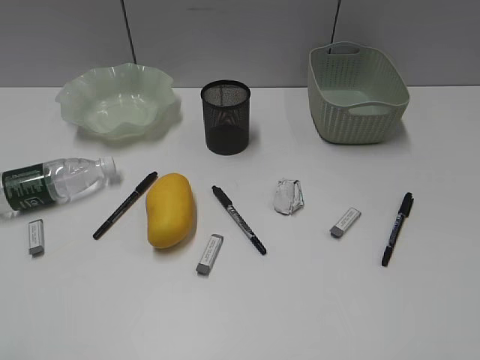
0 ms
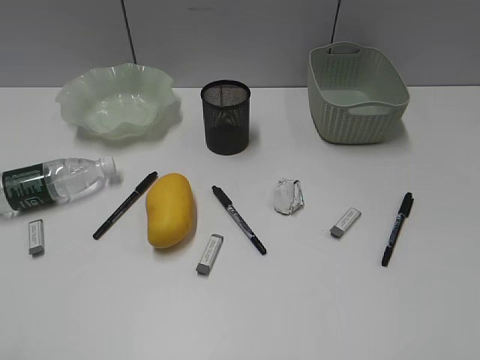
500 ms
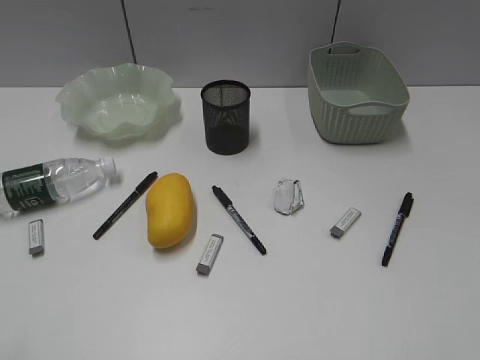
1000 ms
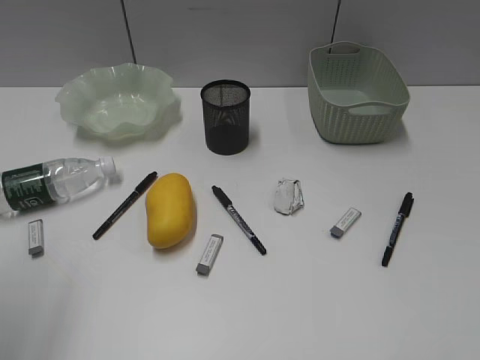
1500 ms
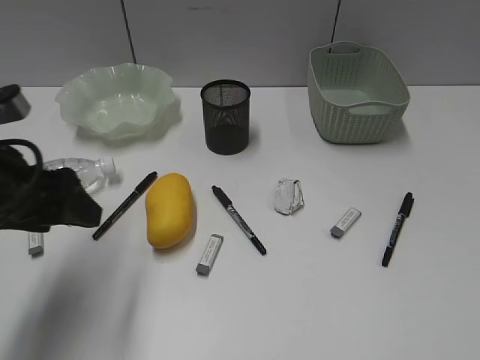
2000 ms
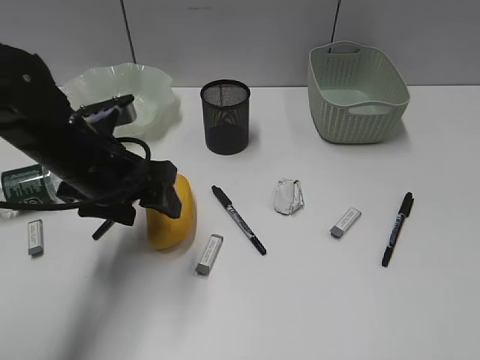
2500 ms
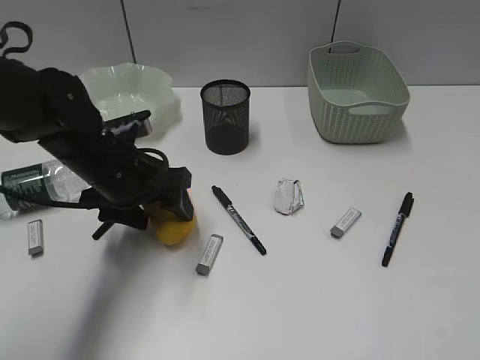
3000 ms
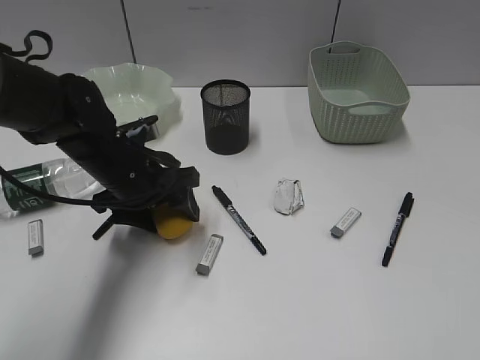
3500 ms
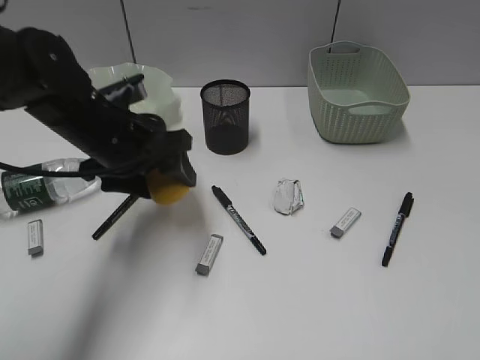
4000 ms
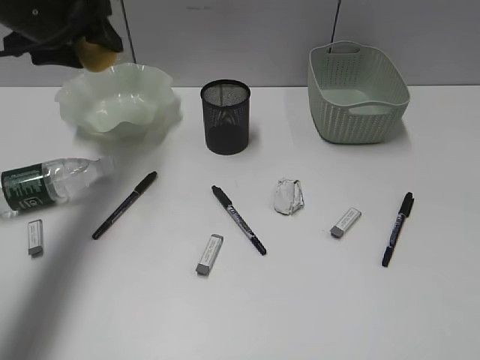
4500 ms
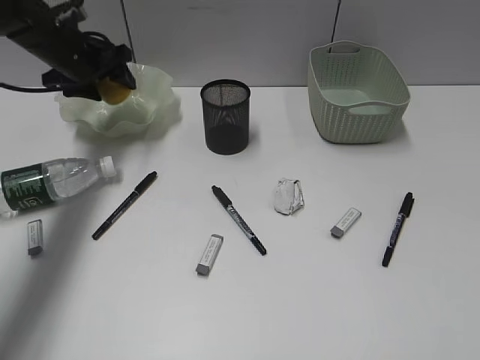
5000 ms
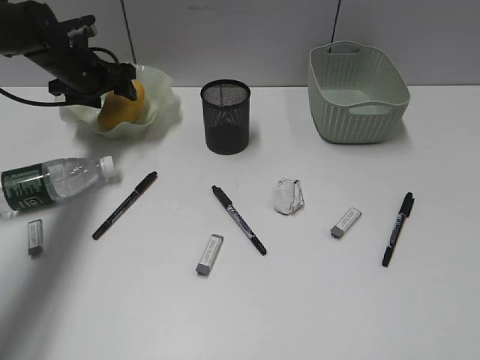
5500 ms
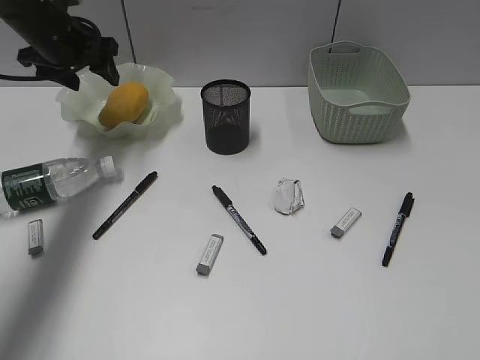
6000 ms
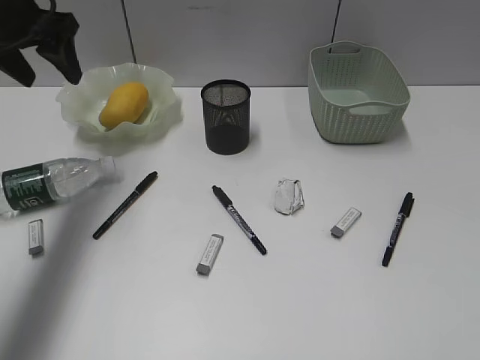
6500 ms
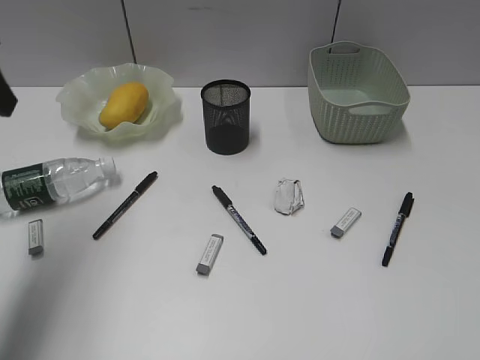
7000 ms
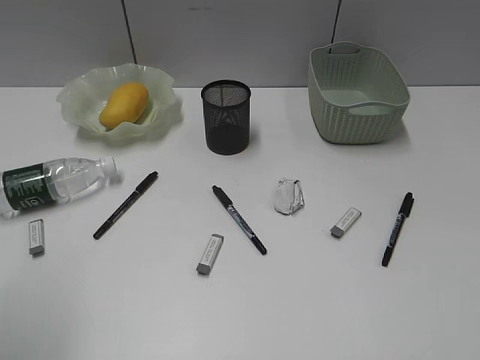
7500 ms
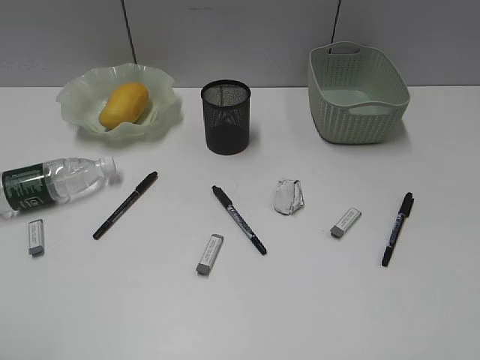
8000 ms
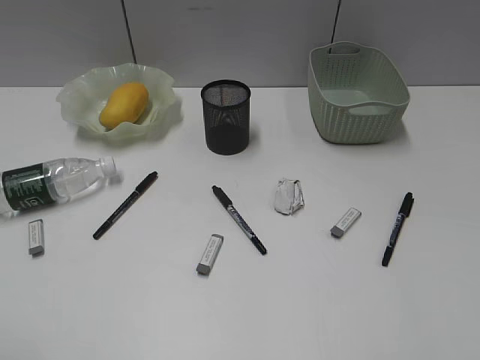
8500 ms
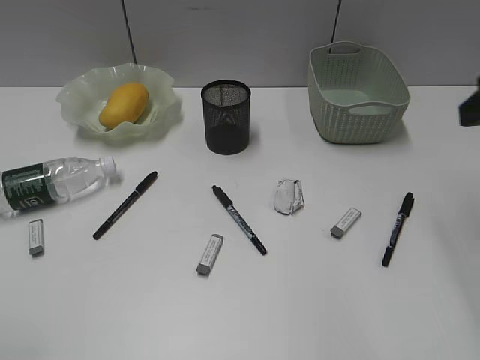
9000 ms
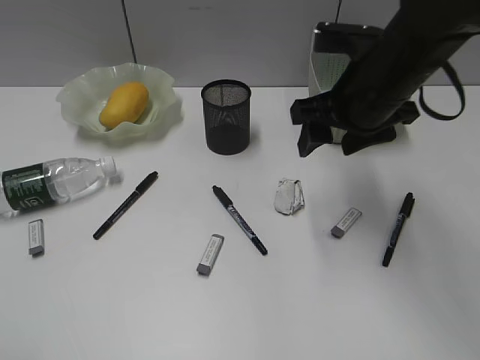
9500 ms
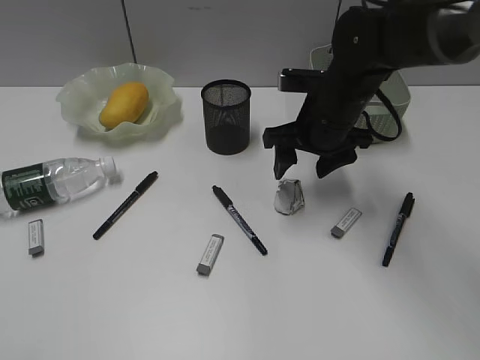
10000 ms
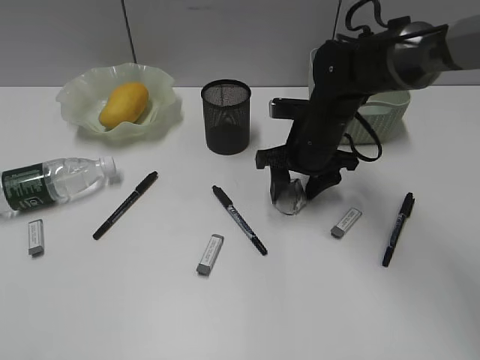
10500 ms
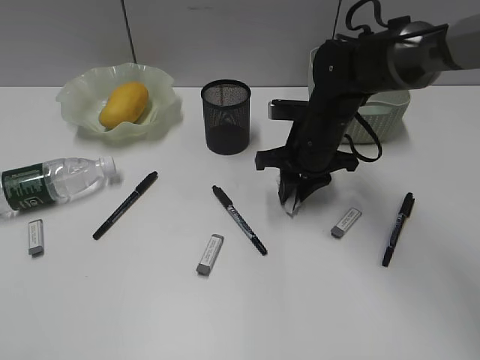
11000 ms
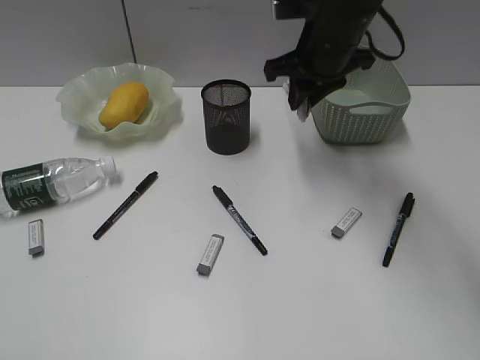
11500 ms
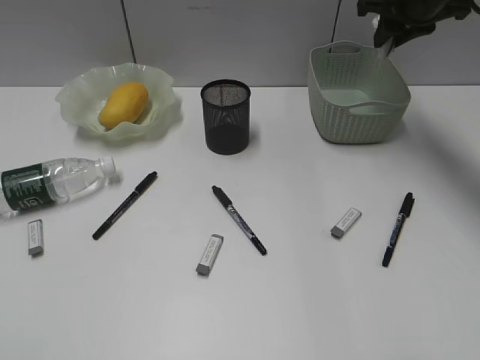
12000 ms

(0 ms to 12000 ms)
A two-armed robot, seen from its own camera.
Step, 1000 ms - 3500 ms: Grasp the mango with left gripper.
Step, 4000 ms - 6000 ms: Place the mango in the plate with left gripper.
Step, 6500 ms - 11000 ms: Grasp the waste paper with right gripper.
2000 ms - 4000 ms: The left gripper travels forward and to the right by approximately 15 cm.
4000 ms - 6000 ms: The left gripper goes roughly 20 cm forward and to the left.
6000 ms - 8000 ms: The left gripper travels backward by roughly 50 cm.
8000 ms - 10000 ms: The right gripper heads forward and to the left, covering about 40 cm.
10000 ms - 12000 ms: The right gripper shifts about 20 cm upward, to the right and forward, and closes up.

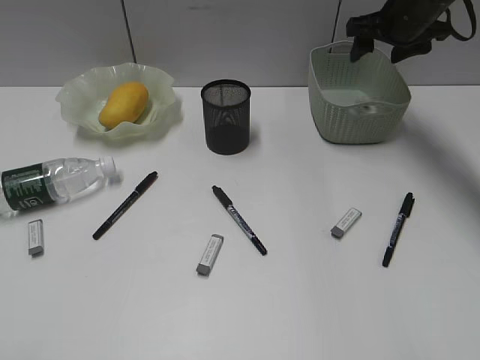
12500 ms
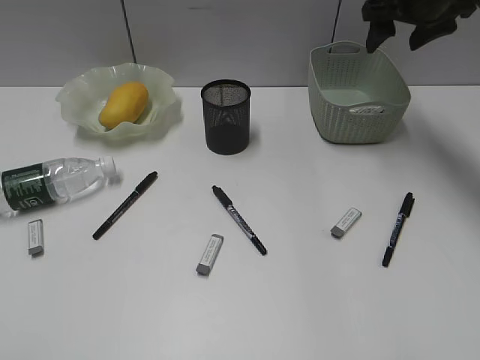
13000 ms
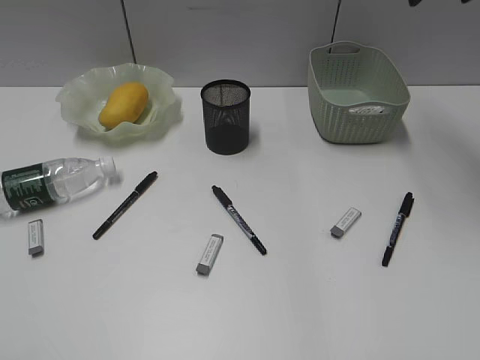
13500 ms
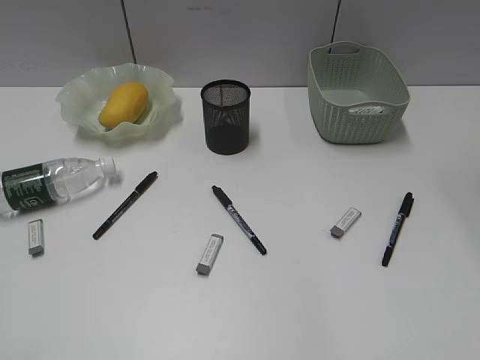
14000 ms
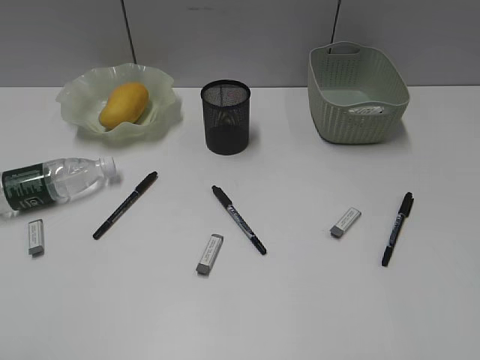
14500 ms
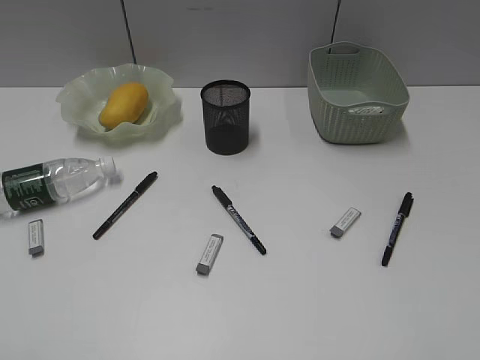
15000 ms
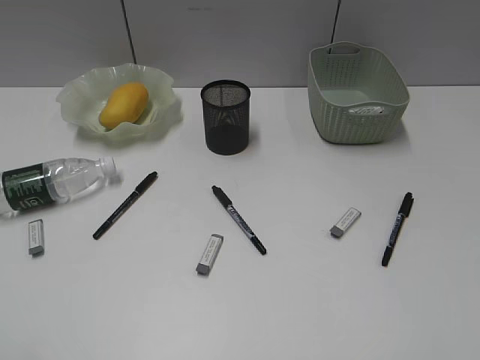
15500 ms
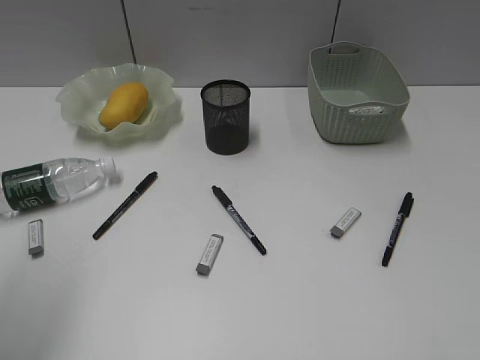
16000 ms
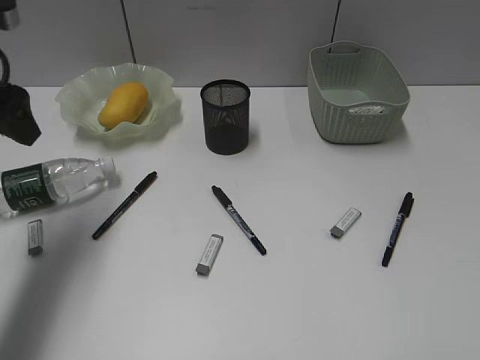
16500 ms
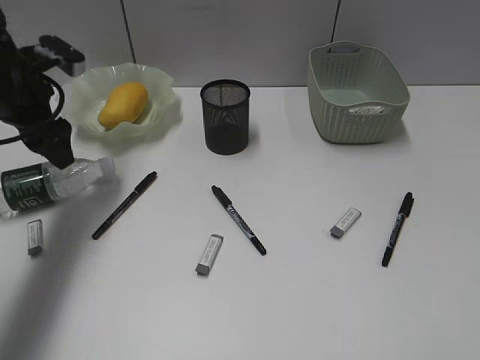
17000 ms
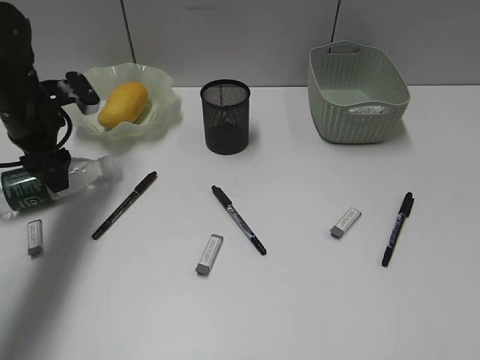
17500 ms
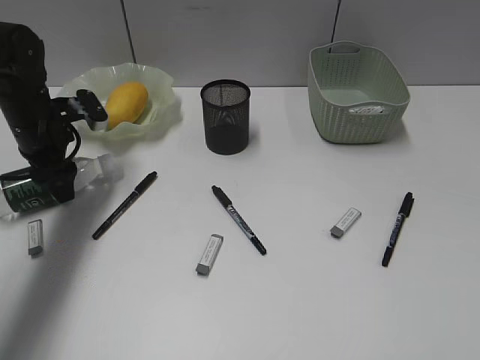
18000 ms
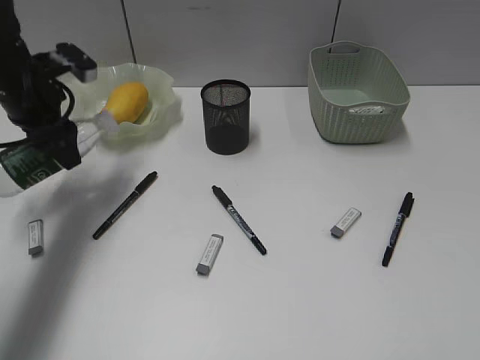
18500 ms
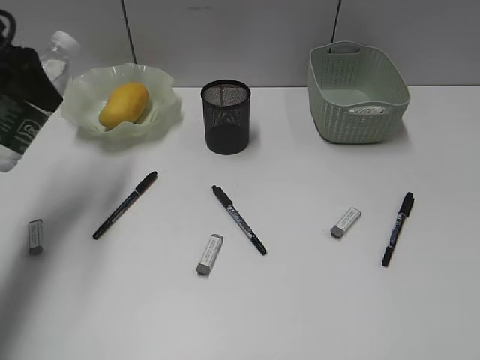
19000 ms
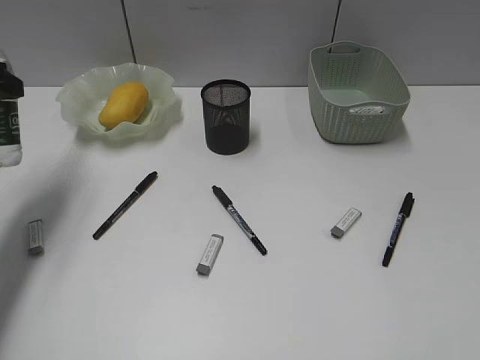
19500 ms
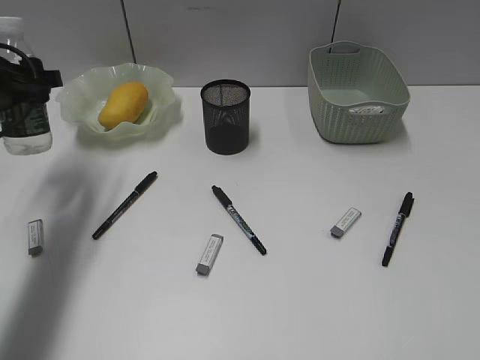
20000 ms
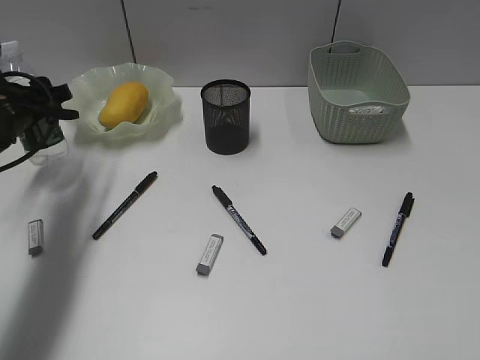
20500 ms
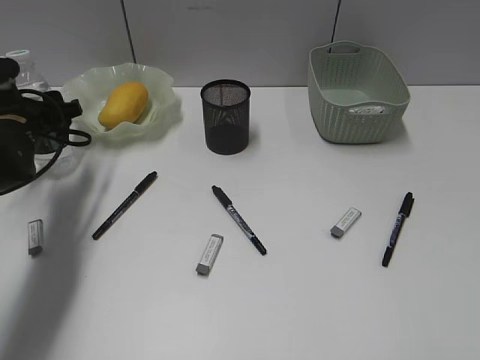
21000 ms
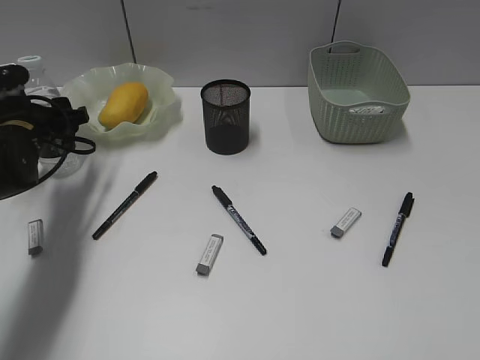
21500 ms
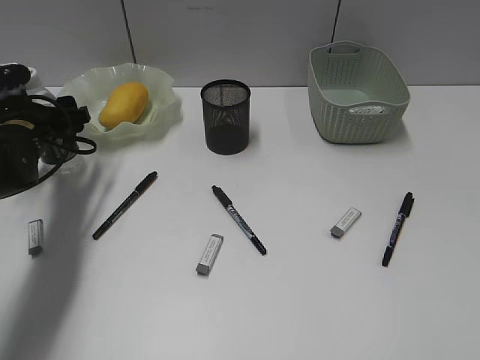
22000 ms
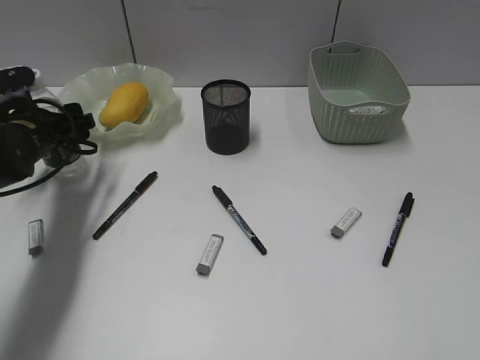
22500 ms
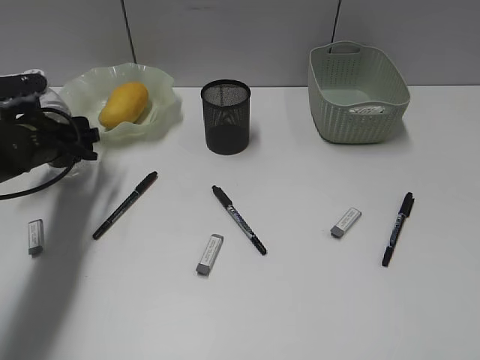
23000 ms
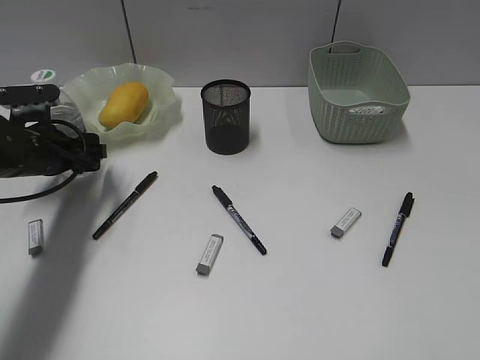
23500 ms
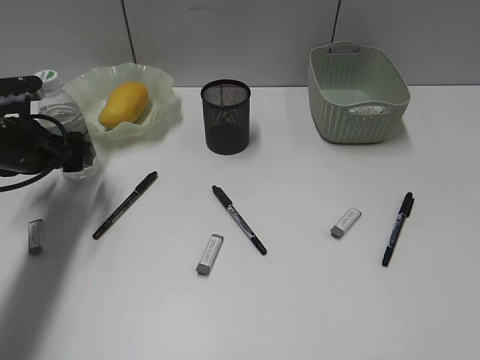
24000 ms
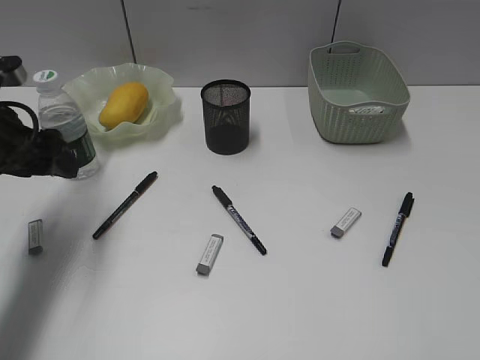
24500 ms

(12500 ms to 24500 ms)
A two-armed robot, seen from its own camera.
Step, 13000 ms - 18000 ms: Grasp the bottle with left gripper.
Step, 18500 ms - 24000 ms: Stand the bottle with left gripper.
12500 ms - 14500 ms: The right gripper is displaced backward by roughly 35 cm.
14500 ms - 16500 ms: The left gripper is displaced forward by some 30 cm.
16500 ms - 18500 ms: The left gripper heads forward and downward, covering approximately 10 cm.
18500 ms - 20500 ms: The left gripper moves roughly 10 cm upward and comes back.
20500 ms - 22500 ms: The grippers make only small movements.
22500 ms - 24500 ms: The left gripper travels upward and backward by some 10 cm.

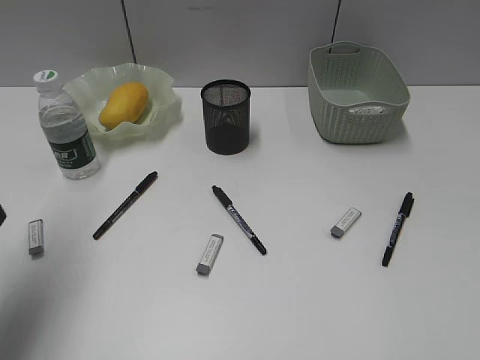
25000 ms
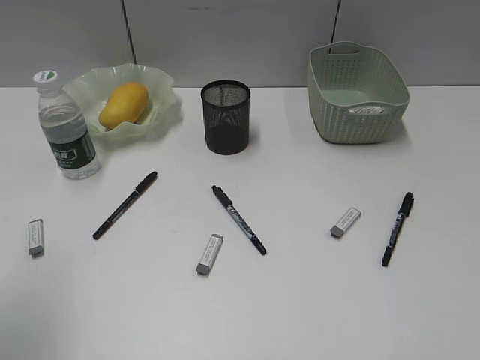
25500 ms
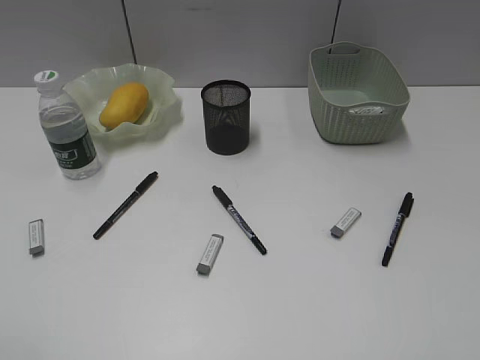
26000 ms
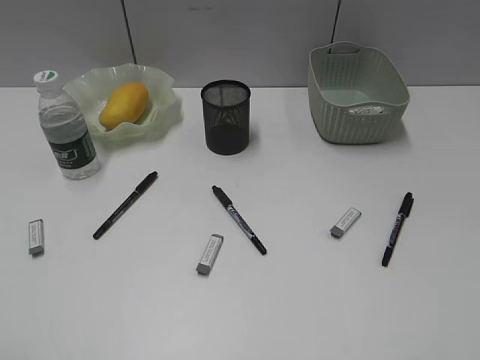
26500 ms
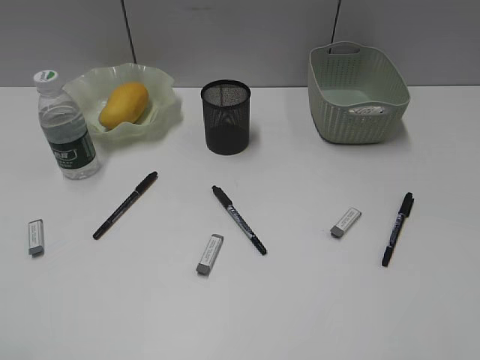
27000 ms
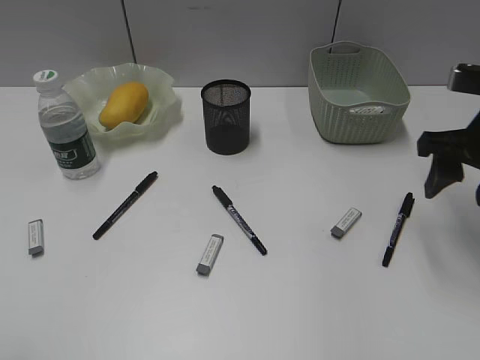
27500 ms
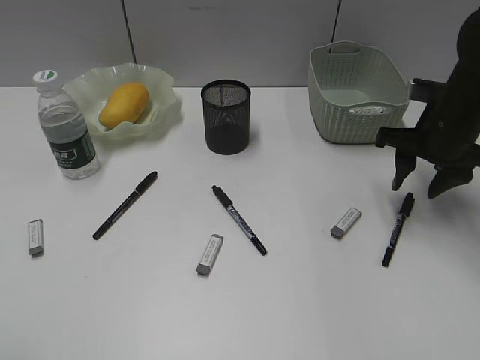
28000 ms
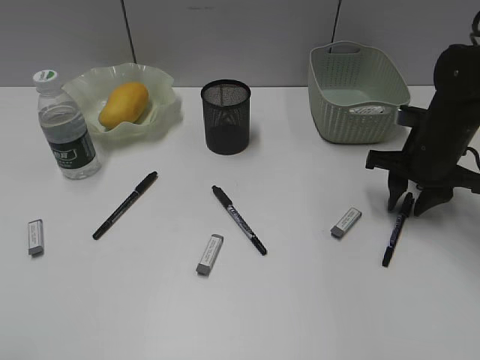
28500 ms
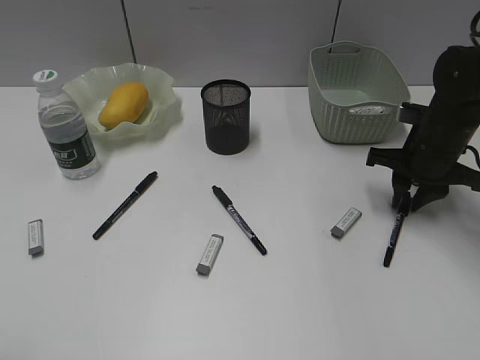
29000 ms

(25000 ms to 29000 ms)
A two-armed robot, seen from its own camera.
25000 ms - 27000 ms: The left gripper goes approximately 25 cm backward.
27000 ms - 29000 ms: The right gripper travels forward and downward by about 30 cm, and closes up.
